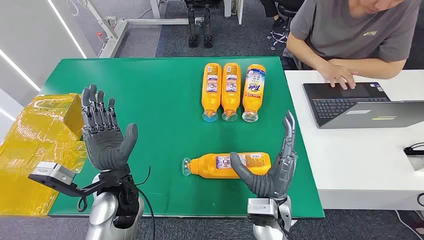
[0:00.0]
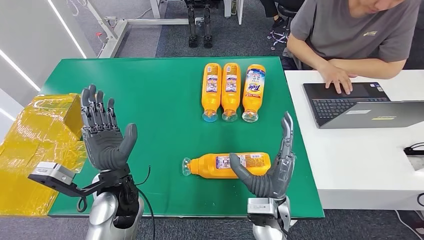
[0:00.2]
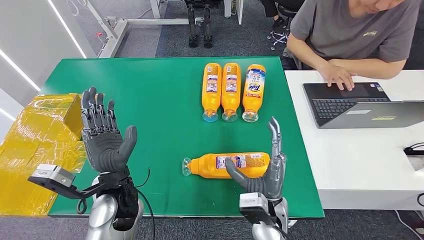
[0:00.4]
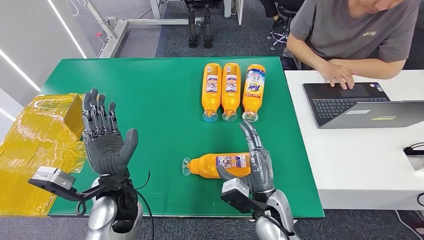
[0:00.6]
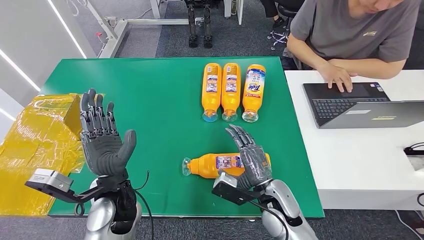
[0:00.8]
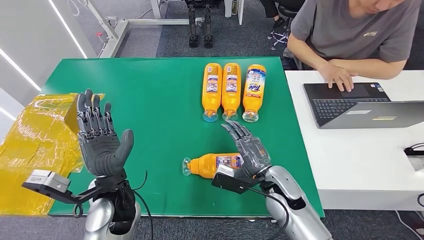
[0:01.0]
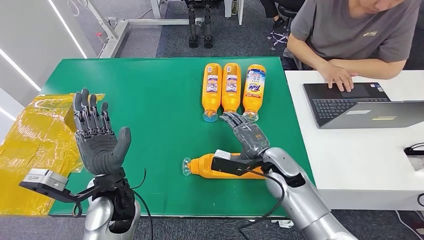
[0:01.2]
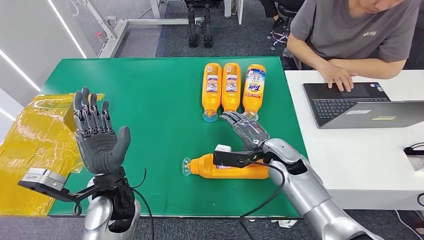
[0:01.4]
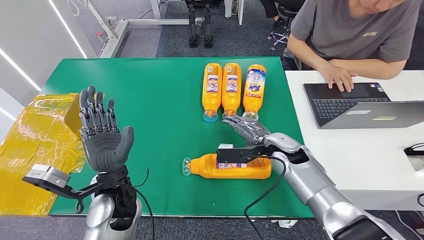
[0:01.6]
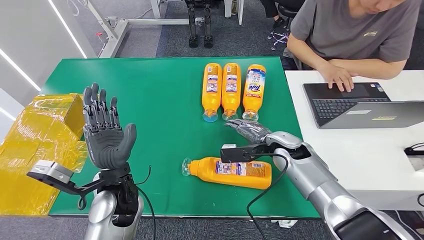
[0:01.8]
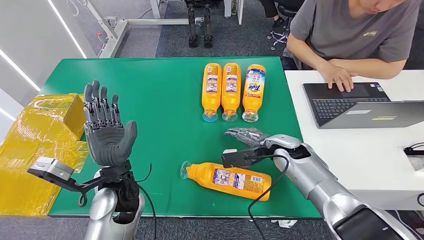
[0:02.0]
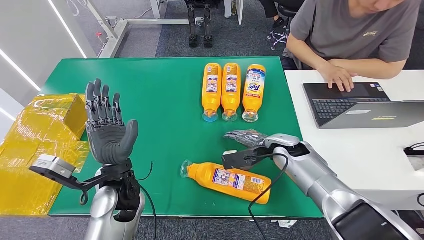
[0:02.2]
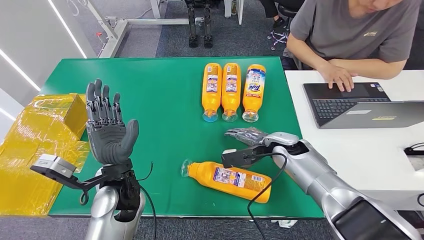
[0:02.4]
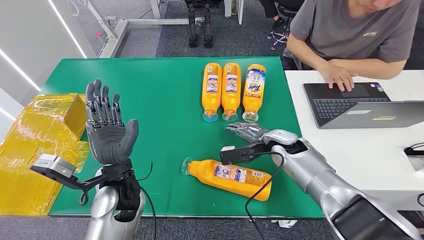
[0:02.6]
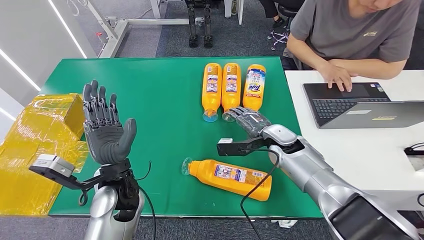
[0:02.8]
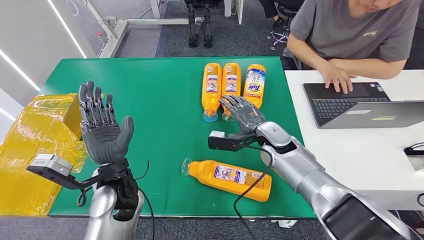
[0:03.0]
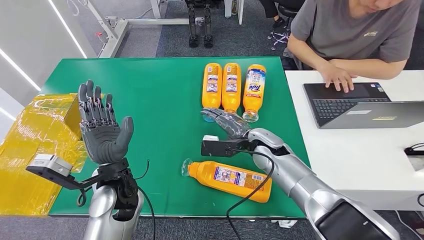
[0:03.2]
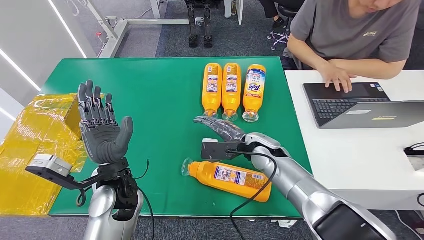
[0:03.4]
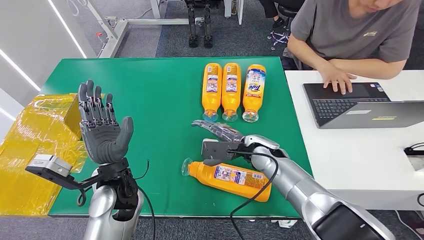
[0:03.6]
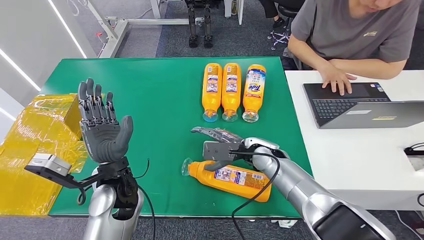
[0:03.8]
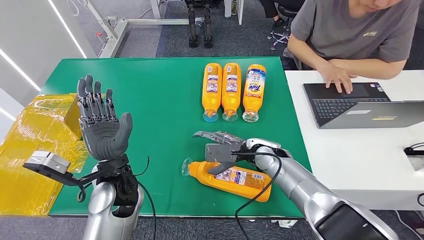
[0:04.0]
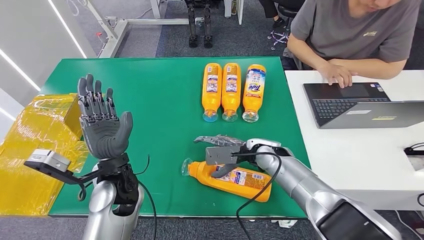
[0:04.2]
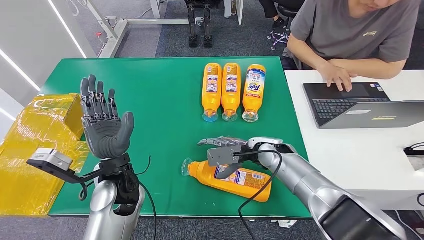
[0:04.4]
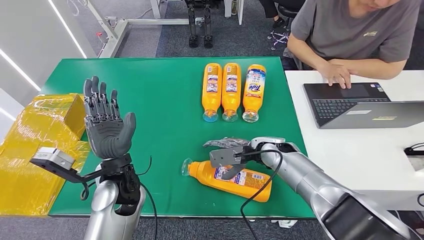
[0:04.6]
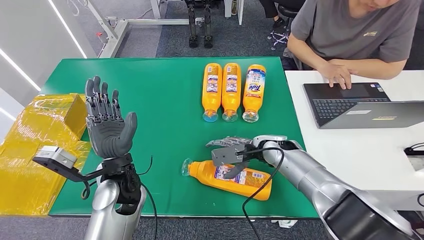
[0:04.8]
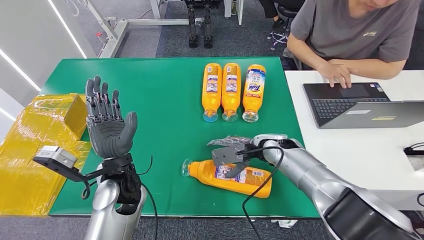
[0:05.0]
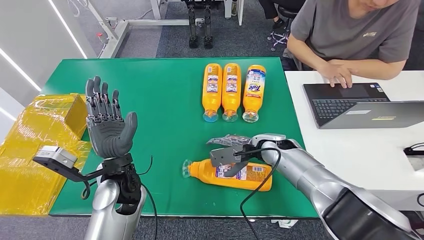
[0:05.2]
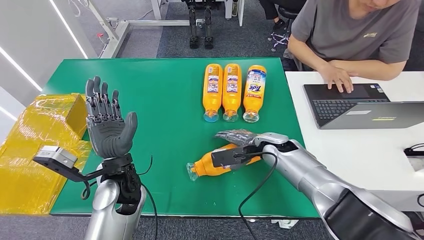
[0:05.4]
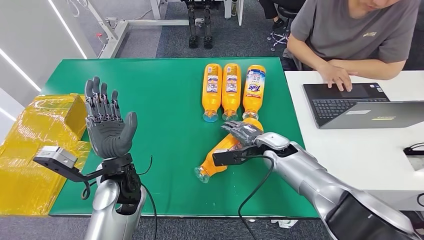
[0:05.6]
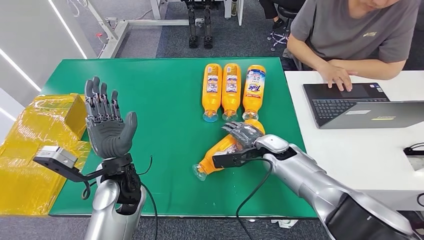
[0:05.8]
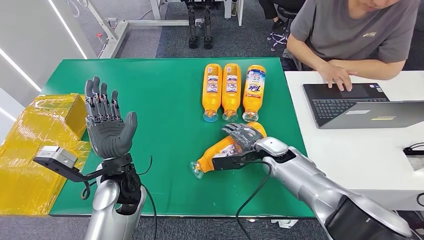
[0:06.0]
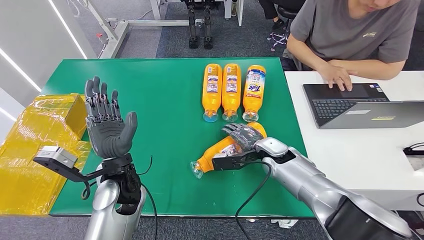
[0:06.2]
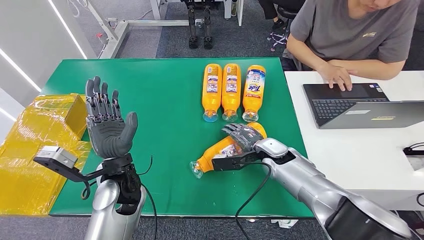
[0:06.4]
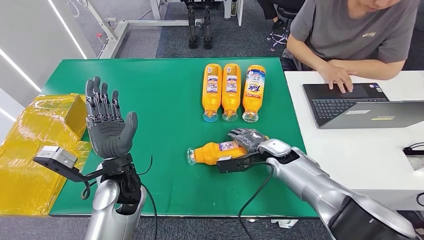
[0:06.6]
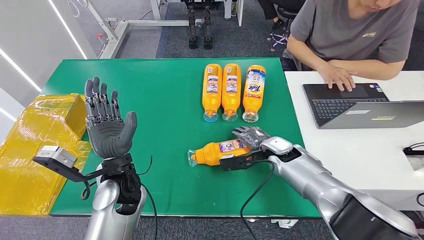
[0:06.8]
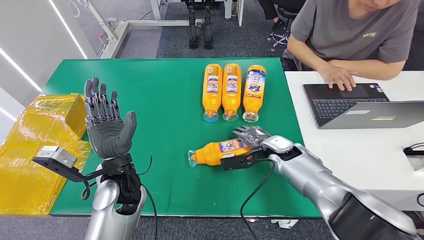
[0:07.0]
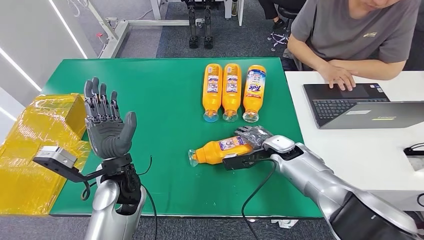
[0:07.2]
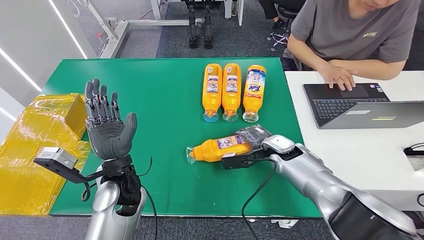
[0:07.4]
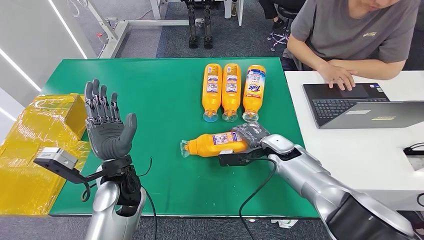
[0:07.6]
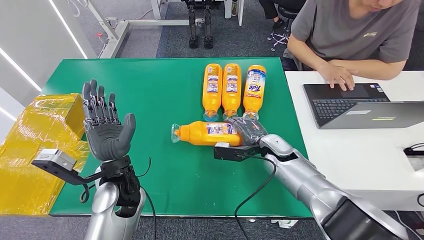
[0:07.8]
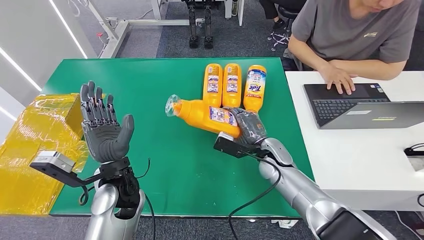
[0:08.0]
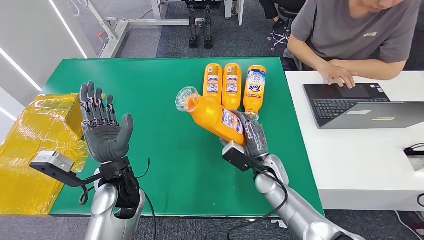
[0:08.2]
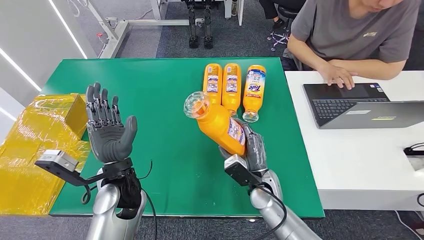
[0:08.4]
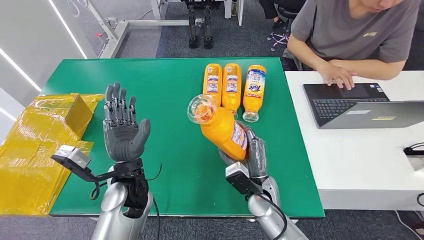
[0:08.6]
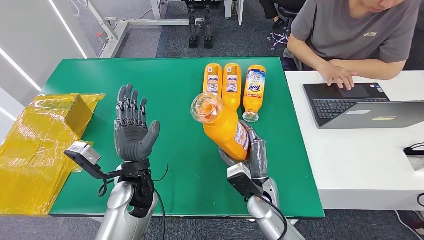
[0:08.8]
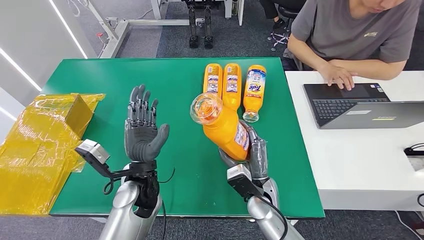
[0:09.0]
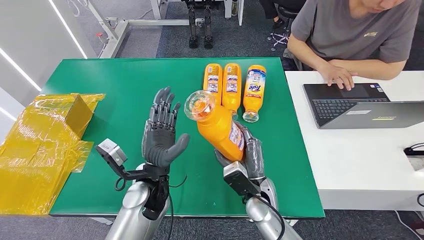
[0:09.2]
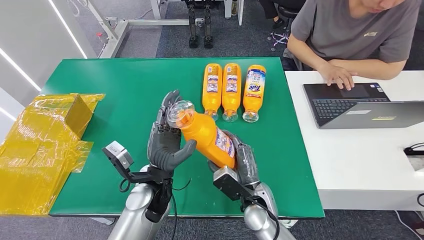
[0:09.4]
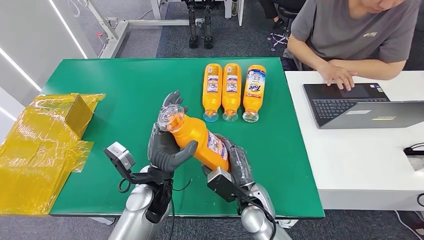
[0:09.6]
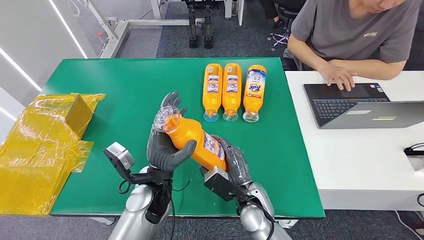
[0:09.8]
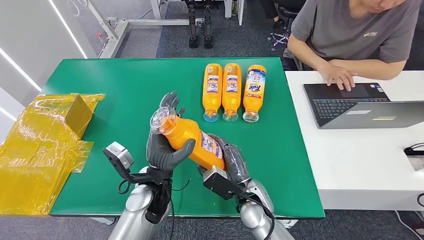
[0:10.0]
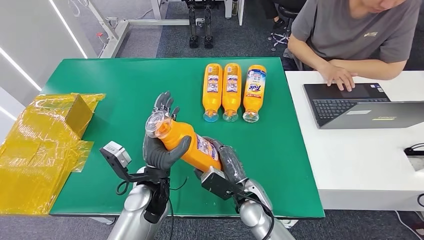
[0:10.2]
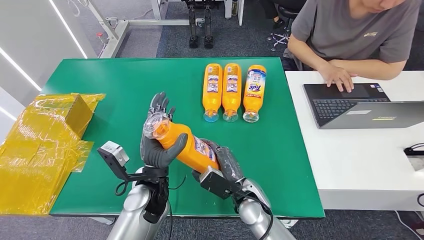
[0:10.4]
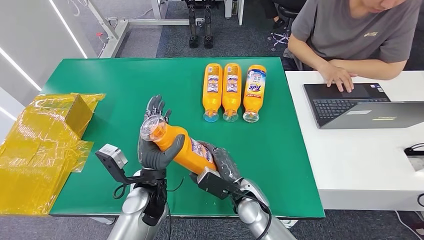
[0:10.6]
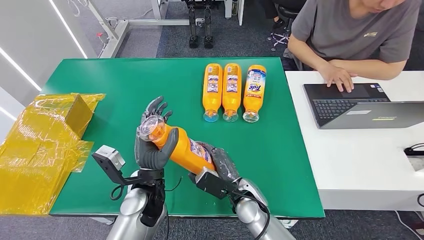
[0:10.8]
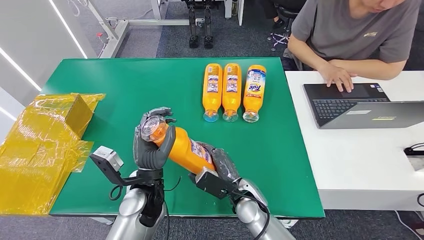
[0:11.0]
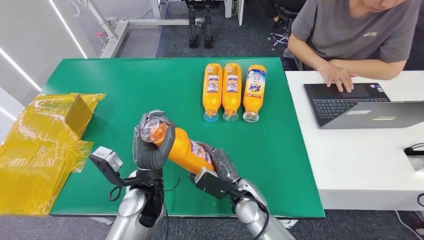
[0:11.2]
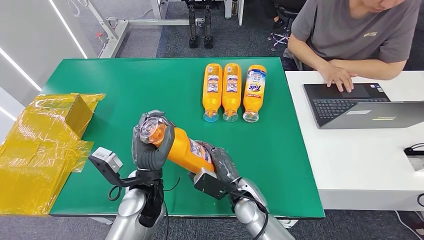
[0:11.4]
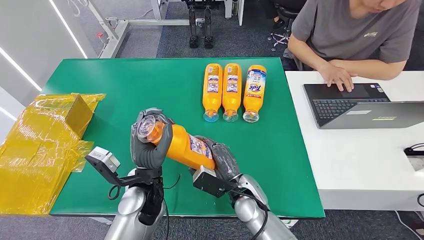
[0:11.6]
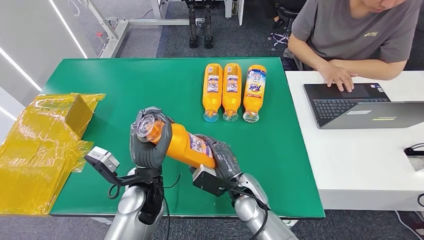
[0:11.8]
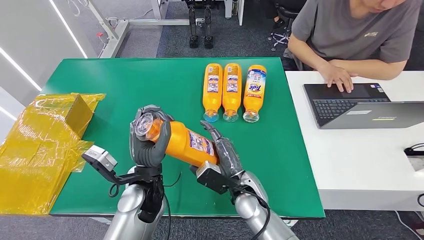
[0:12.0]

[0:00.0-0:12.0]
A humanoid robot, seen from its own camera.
Step, 0:00.0 to 0:08.6: Pick up the bottle from the table.
0:01.6 to 0:03.0: The hands move only a little.
0:06.0 to 0:07.6: There are only small adjustments of the hands.
0:07.6 to 0:09.0: The right hand is displaced backward and to the left by approximately 15 cm.
0:10.4 to 0:12.0: The hands stay close to where they were, moving slightly.

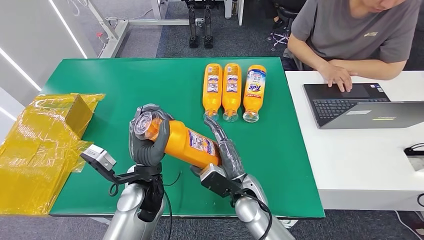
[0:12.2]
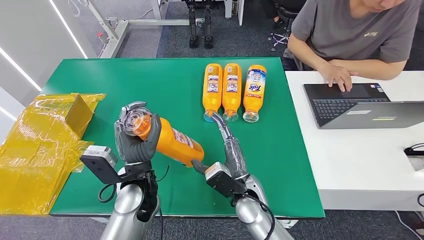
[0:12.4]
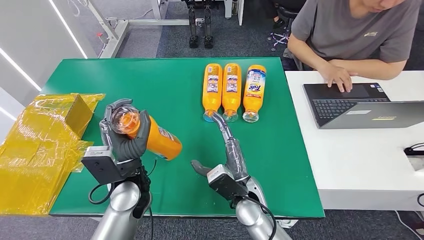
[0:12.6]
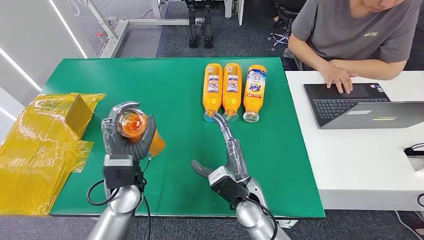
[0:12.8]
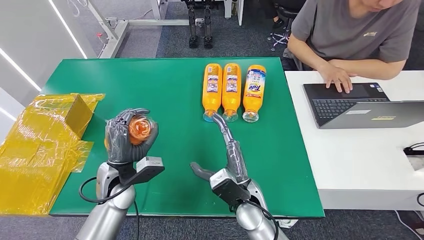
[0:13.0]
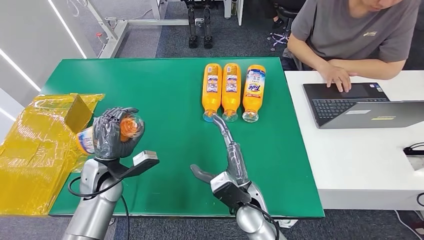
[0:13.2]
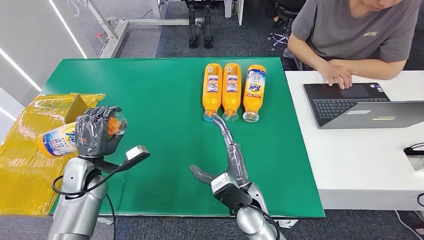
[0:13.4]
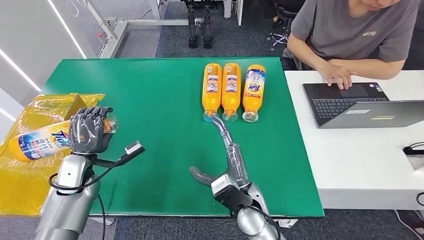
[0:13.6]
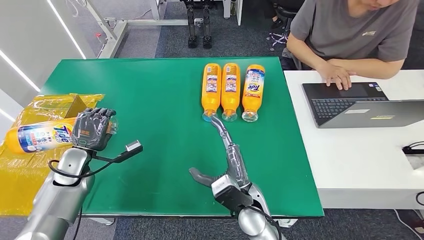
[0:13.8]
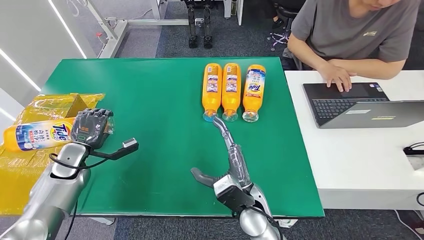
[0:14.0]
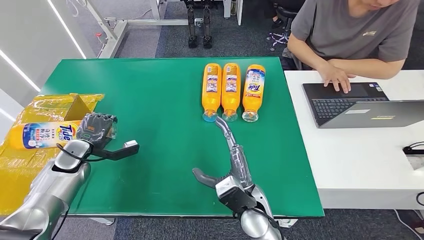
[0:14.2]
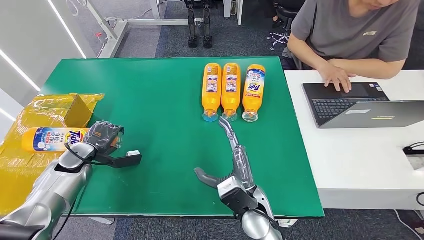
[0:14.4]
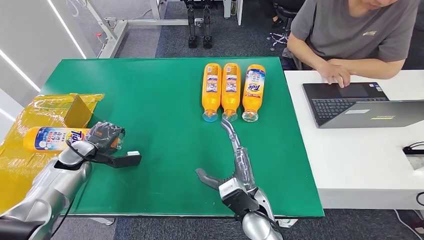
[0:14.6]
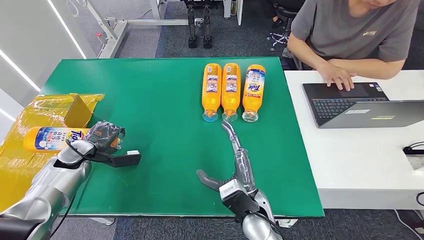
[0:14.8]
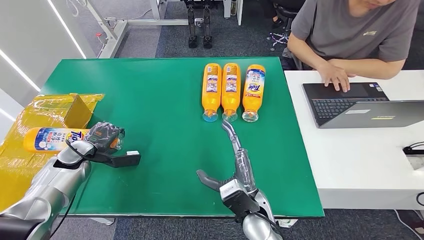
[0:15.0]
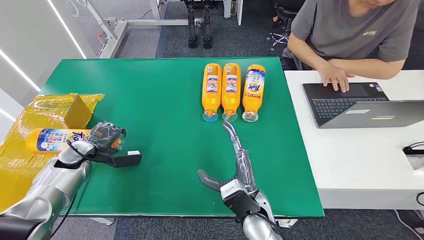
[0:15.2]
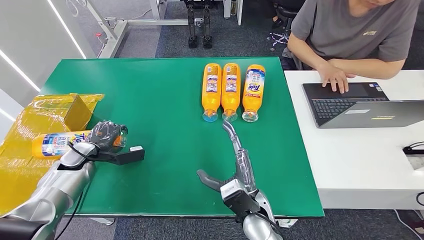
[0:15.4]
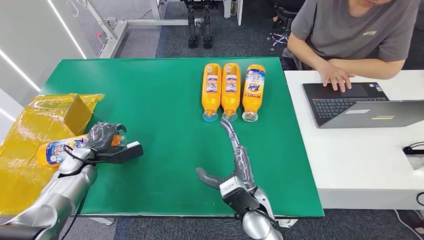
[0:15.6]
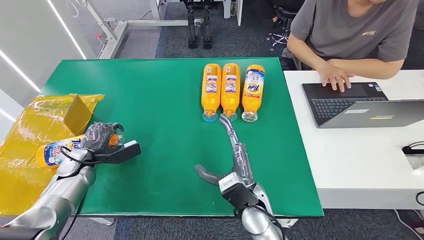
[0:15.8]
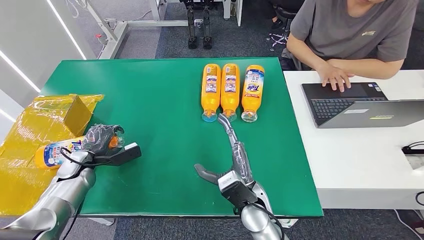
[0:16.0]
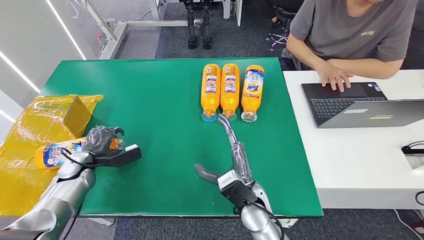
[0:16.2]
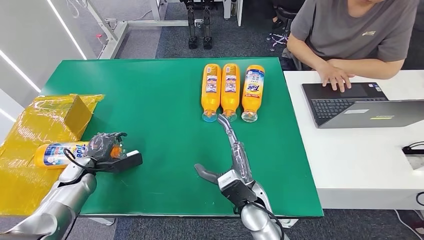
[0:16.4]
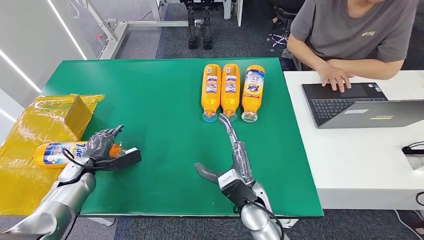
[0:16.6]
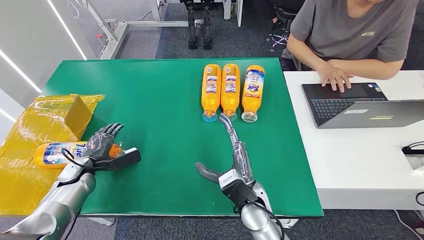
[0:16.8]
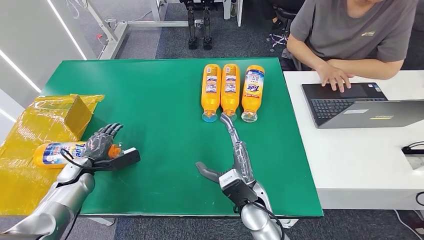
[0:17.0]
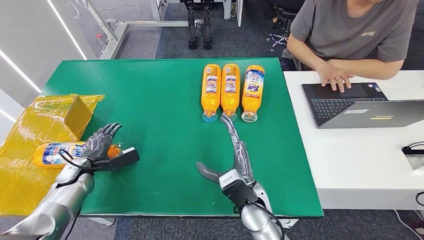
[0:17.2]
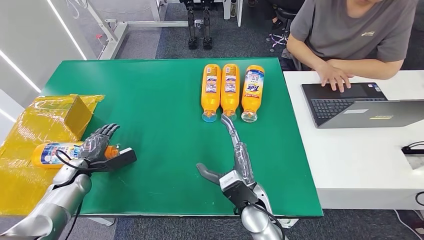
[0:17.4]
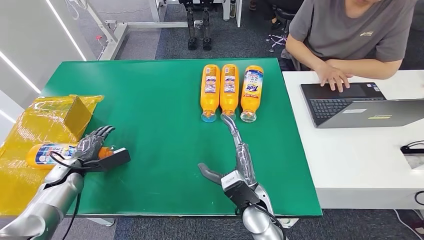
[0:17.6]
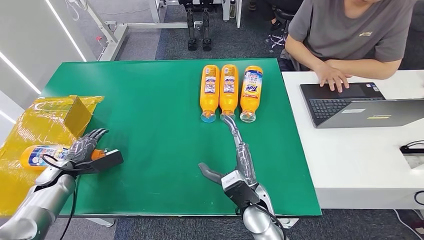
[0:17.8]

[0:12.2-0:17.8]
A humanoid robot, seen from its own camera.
0:12.2 to 0:13.6: The left hand goes approximately 20 cm to the left.
0:13.6 to 0:15.0: The left hand heads to the left and forward, covering approximately 10 cm.
0:15.0 to 0:16.4: The left hand changes place by some 5 cm.
0:16.4 to 0:17.8: The left hand travels to the left by about 5 cm.
